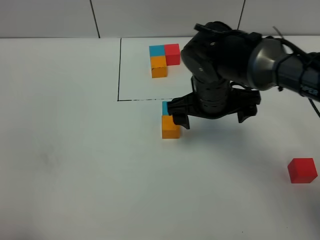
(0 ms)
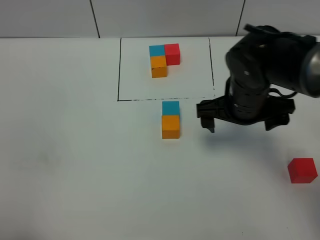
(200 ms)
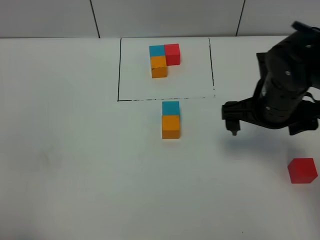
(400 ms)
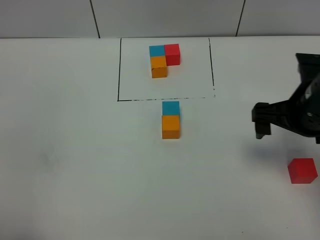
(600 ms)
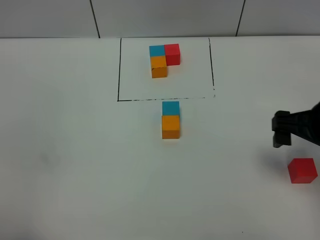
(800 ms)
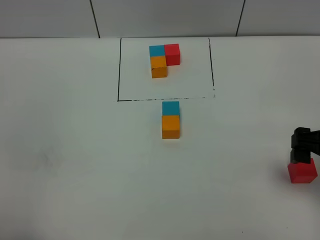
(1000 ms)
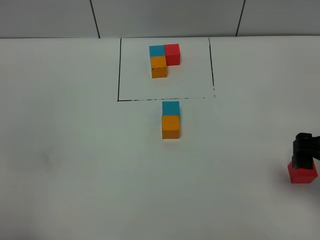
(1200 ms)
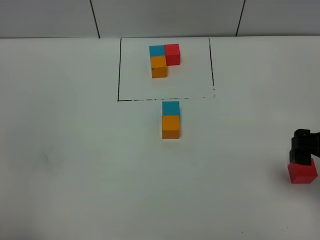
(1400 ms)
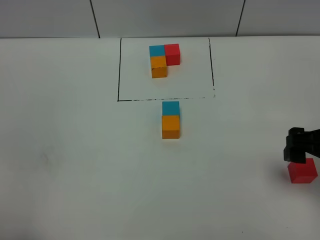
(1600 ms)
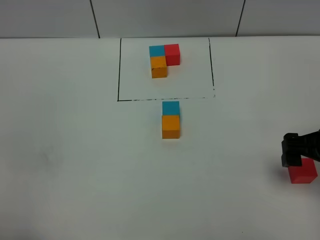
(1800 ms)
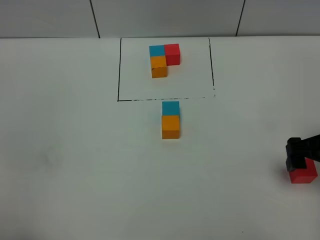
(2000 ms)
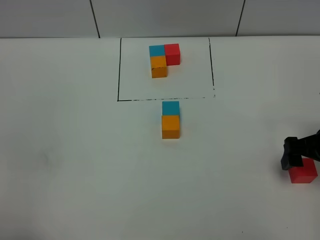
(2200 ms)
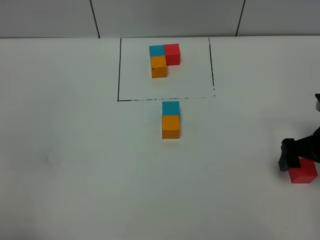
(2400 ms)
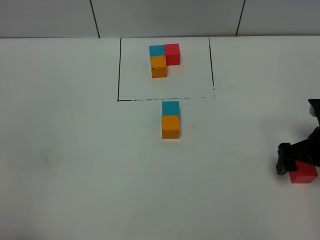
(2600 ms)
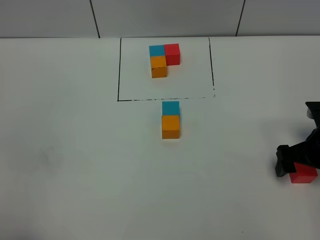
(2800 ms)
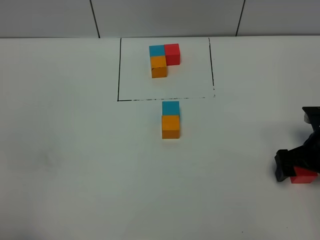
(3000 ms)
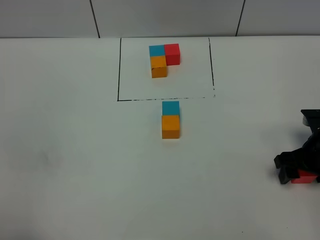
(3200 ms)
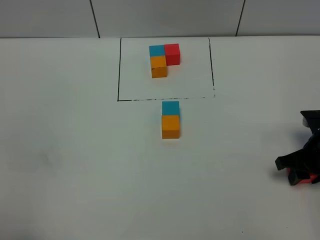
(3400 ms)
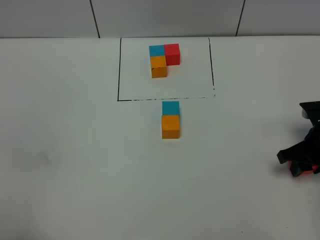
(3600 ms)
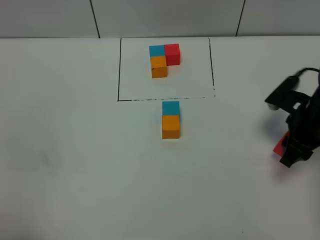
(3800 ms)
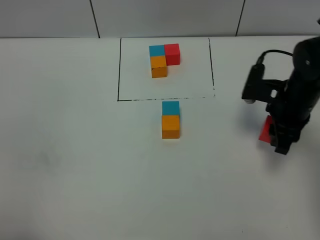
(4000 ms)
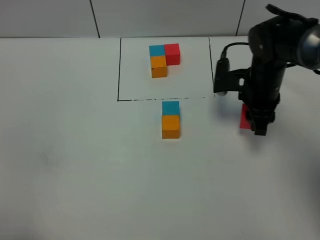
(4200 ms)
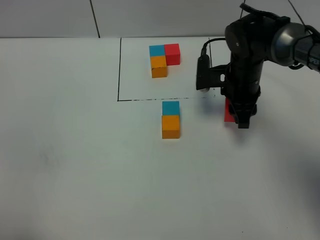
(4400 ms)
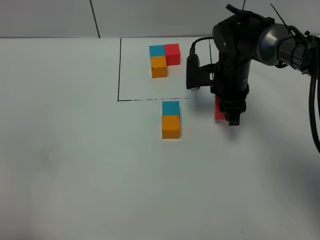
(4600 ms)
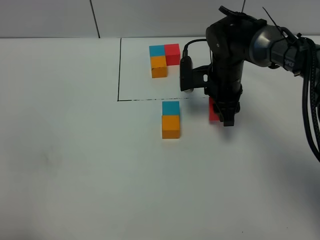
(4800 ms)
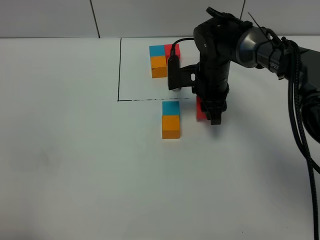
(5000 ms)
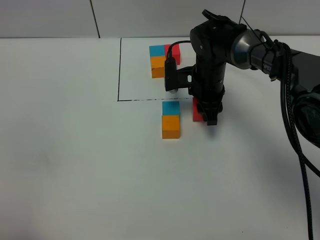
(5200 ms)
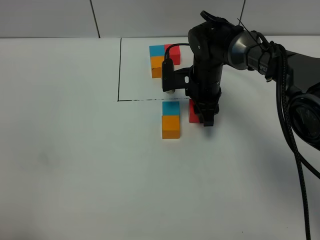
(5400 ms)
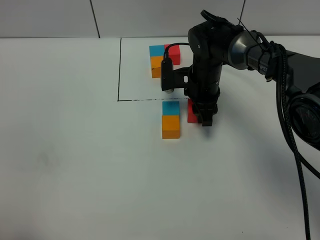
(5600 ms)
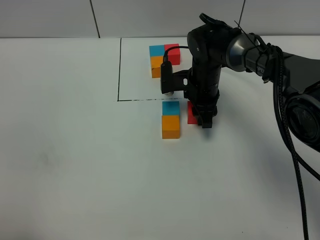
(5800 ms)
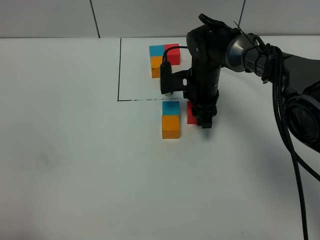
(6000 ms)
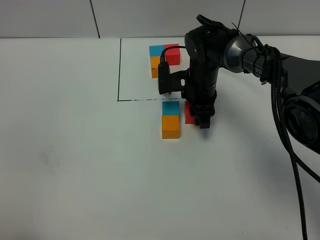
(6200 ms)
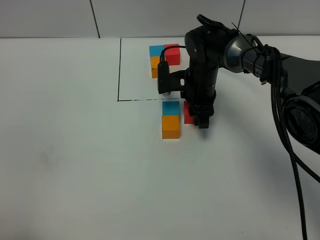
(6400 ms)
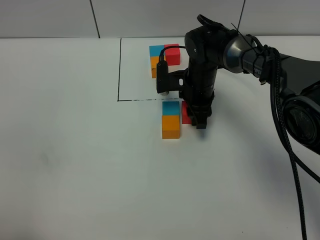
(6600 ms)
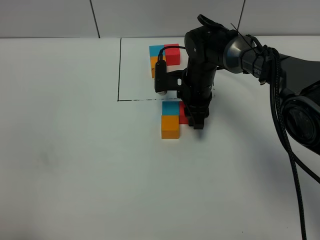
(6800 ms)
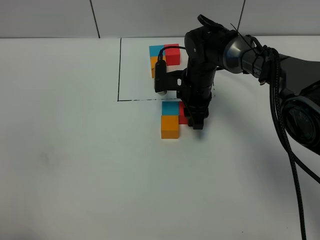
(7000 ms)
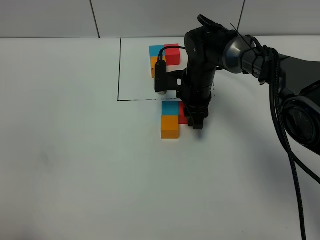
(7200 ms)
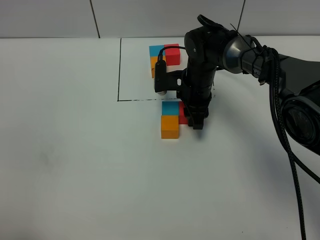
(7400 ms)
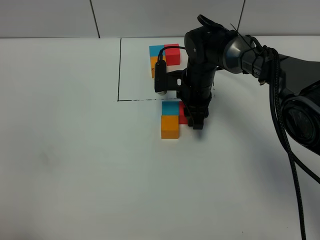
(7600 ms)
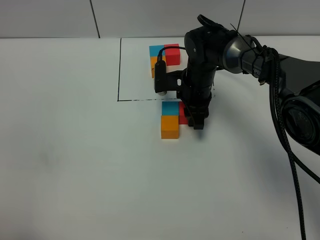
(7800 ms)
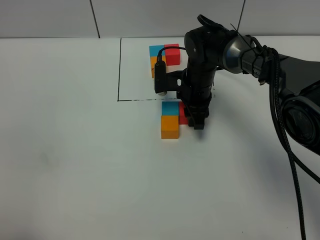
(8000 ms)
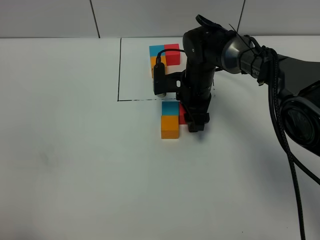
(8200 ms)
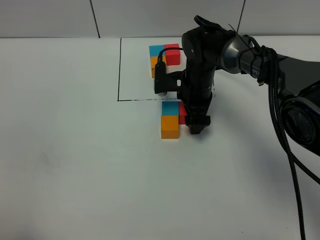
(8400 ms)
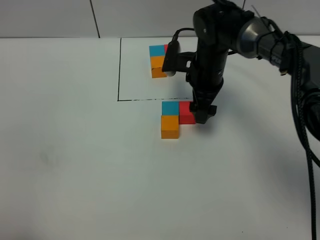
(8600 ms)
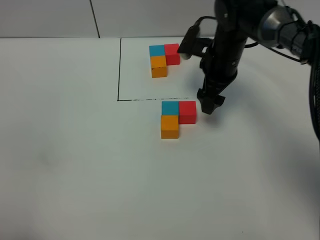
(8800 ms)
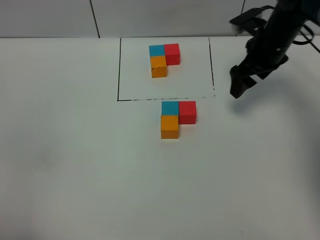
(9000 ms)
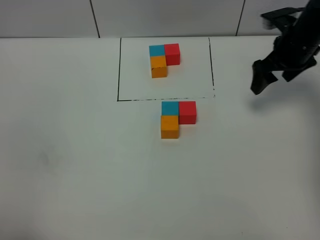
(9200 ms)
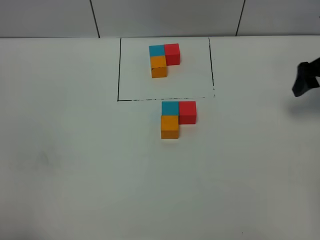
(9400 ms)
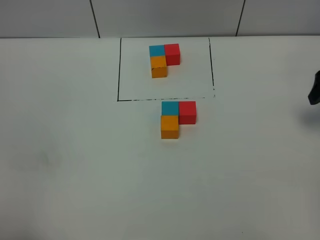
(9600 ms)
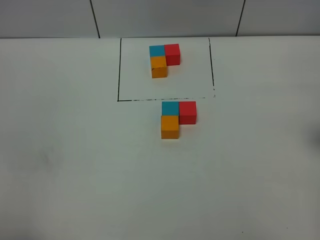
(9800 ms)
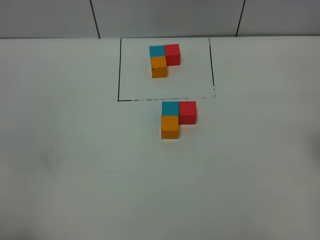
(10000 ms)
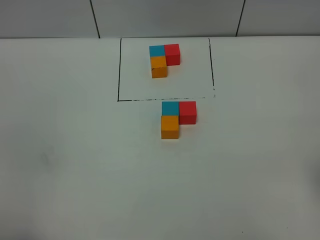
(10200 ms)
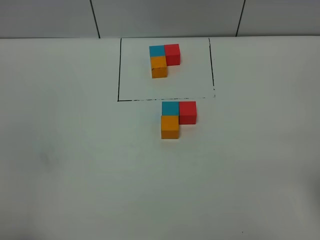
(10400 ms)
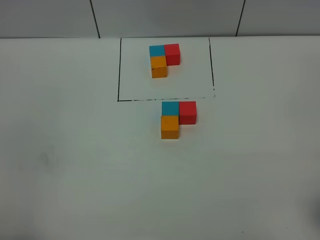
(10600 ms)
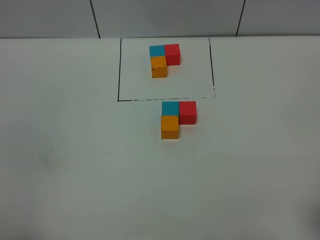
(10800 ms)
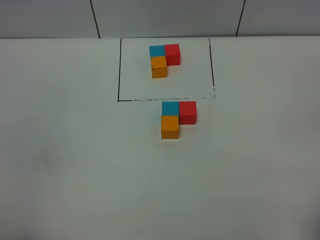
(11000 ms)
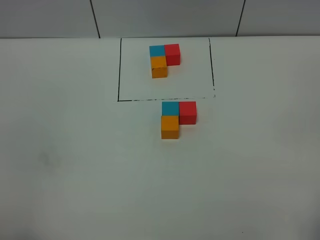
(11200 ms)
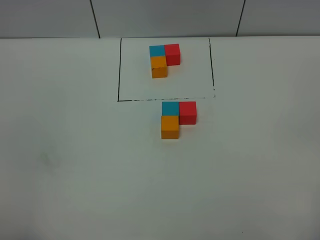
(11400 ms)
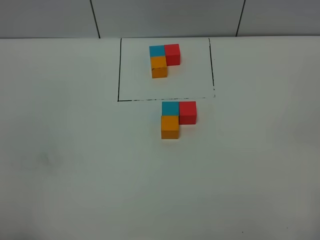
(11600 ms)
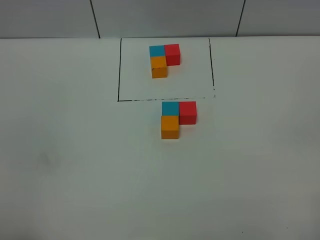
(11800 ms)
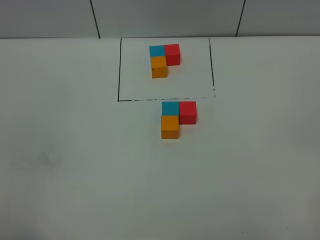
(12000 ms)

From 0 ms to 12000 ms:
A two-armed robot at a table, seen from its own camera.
Task of the whole recording: According to the building block template in front, assemble the scattered blocks together.
Step, from 0 ms to 7800 ms: Put the red build block on the right of the blue build block.
From 0 ms to 1600 ms: The right gripper shifts approximately 20 cm to the right and backward.
From 1600 ms to 3000 ms: The right gripper is displaced downward and forward by some 15 cm.
From 3000 ms to 4400 ms: The right gripper goes about 20 cm to the left and forward, and closes.
From 4400 ms to 6000 ms: The right gripper is displaced to the left by about 5 cm.
From 6000 ms to 7600 ms: The two grippers keep their place.
From 7600 ms to 9000 ms: The right gripper shifts roughly 20 cm to the right and upward, and opens.
From 9000 ms to 10400 ms: The right gripper moves backward, roughly 30 cm.

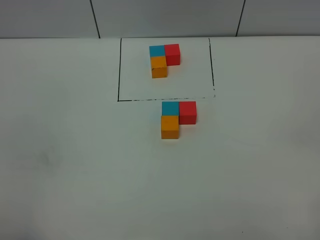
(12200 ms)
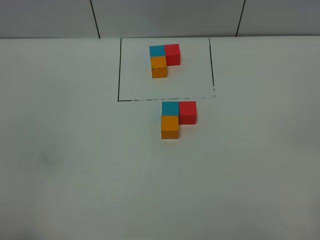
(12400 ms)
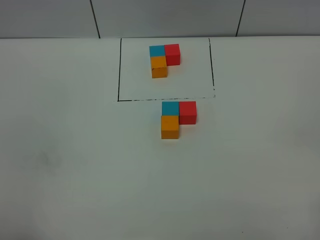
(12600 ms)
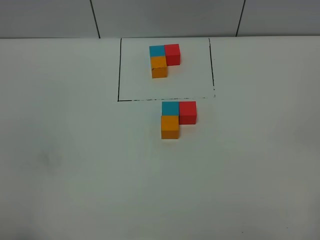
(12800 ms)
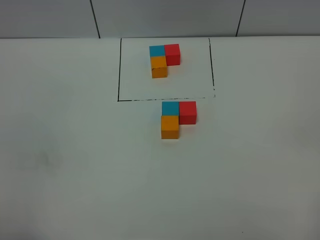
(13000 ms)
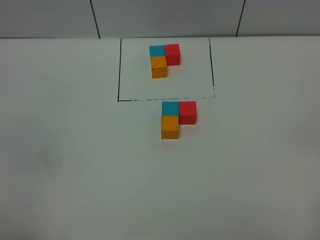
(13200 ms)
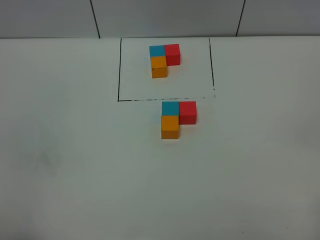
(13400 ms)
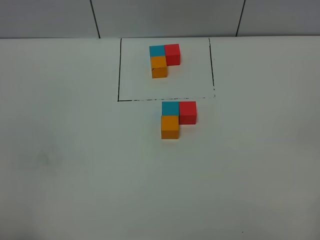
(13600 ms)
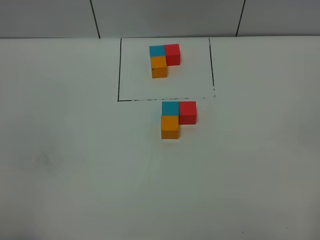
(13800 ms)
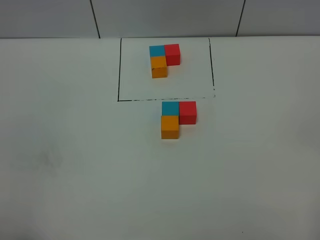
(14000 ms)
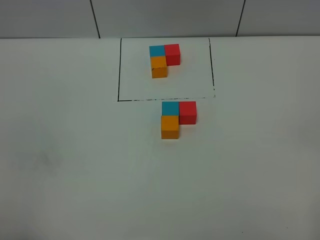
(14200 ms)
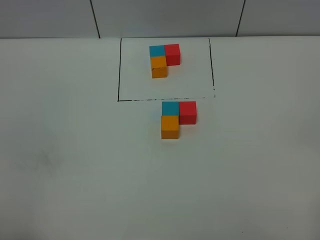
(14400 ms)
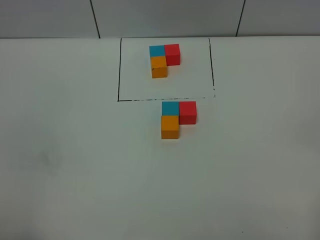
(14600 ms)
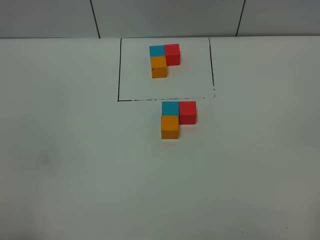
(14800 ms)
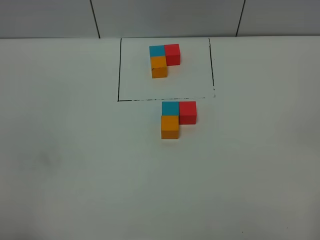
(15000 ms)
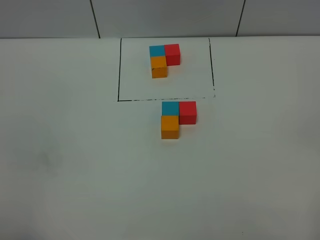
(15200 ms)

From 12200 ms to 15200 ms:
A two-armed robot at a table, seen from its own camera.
Task of the whole recording: According to the building block template in front, assemble the scattered blocks together.
From 13800 ms to 15200 ms: Both grippers stay put.
